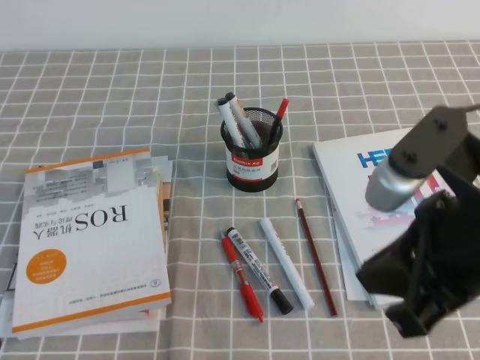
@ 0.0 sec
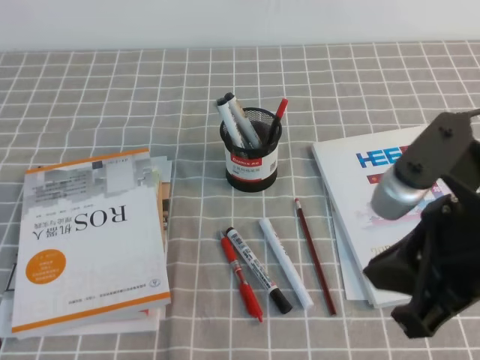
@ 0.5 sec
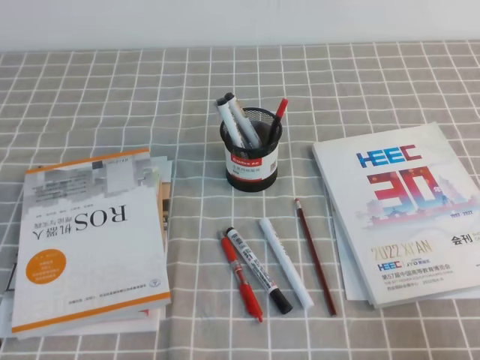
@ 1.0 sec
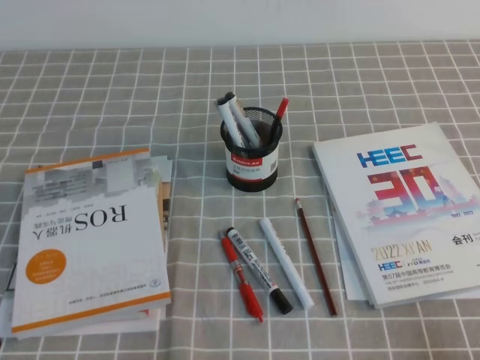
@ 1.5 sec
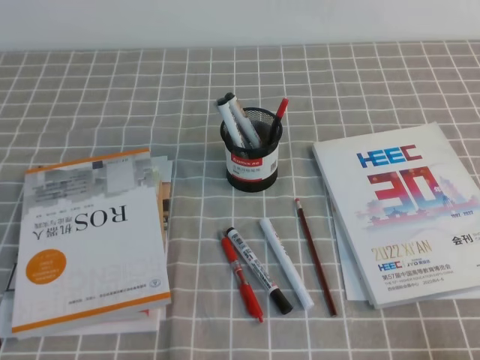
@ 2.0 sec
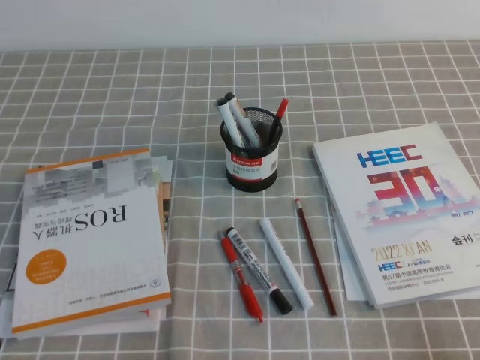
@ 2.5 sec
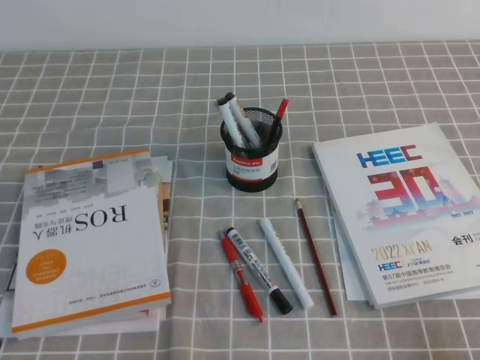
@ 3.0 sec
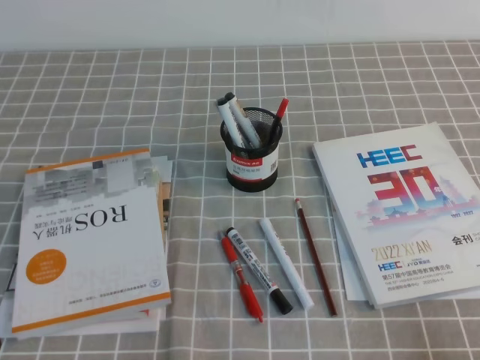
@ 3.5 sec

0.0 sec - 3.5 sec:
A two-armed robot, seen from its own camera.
Step, 0.0 sec - 3.5 sec: Pick up the pen from the pen holder.
0.0 sec - 2.0 sec: The right gripper heads downward, to the right and backward, covering approximately 25 cm.
2.0 sec - 3.5 sec: Both grippers stay about where they are.
